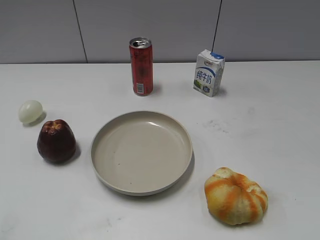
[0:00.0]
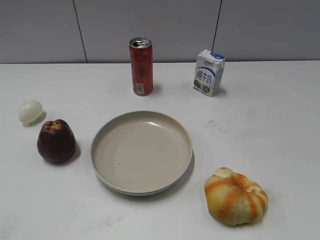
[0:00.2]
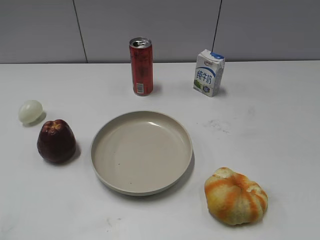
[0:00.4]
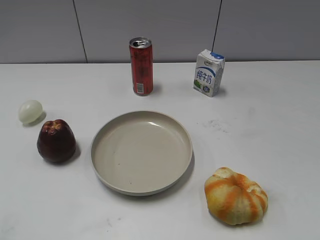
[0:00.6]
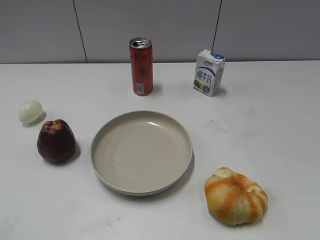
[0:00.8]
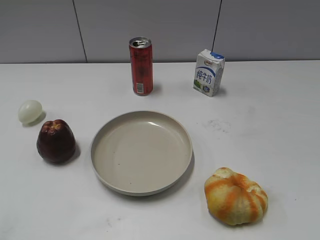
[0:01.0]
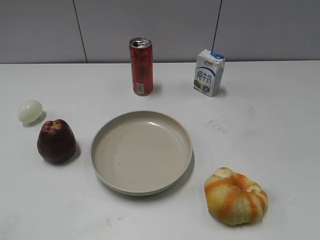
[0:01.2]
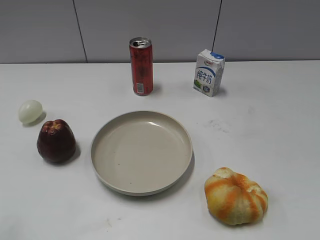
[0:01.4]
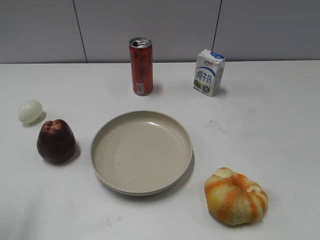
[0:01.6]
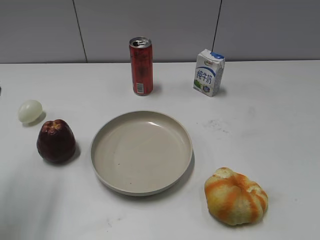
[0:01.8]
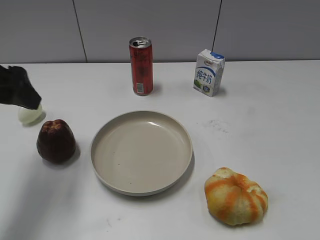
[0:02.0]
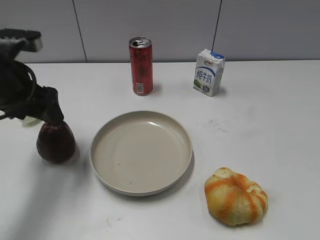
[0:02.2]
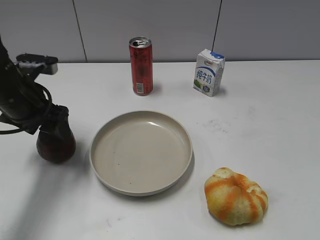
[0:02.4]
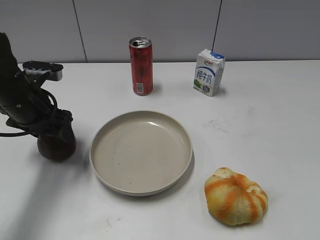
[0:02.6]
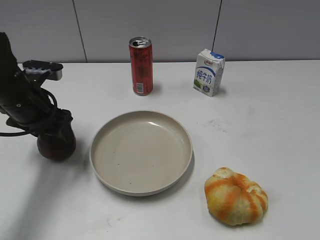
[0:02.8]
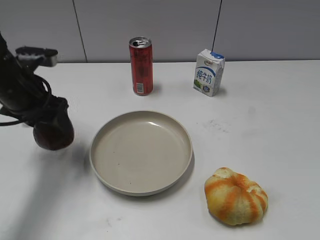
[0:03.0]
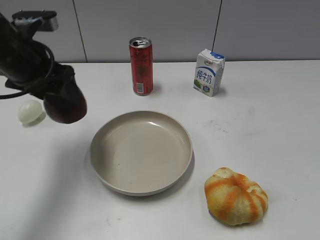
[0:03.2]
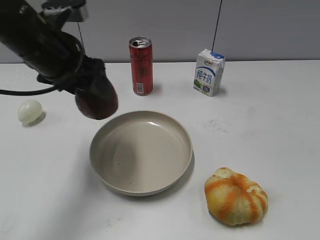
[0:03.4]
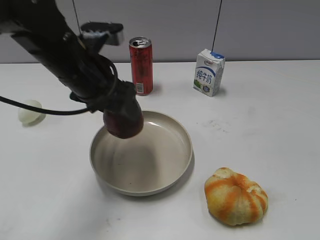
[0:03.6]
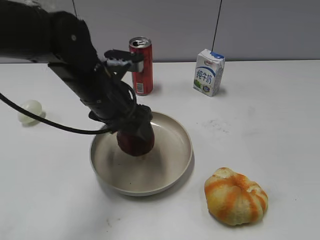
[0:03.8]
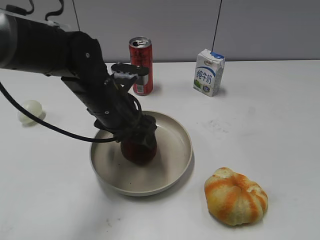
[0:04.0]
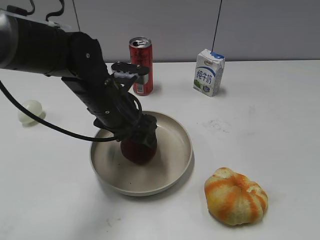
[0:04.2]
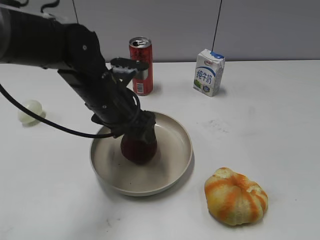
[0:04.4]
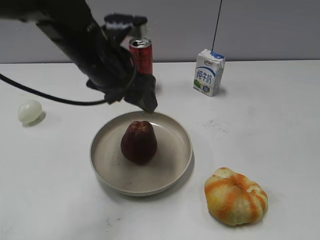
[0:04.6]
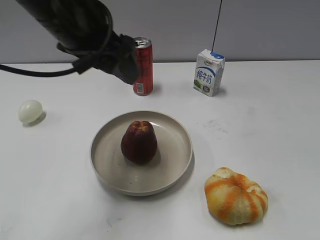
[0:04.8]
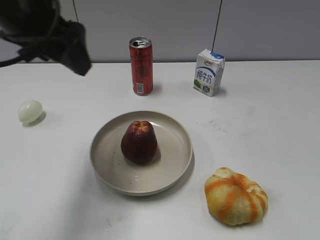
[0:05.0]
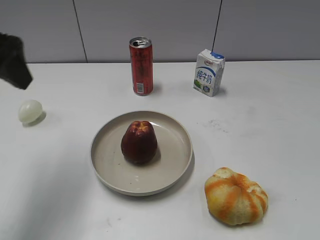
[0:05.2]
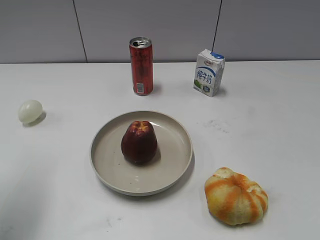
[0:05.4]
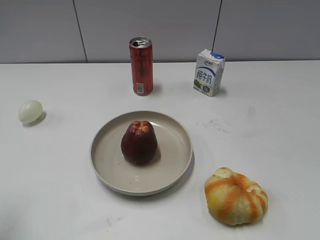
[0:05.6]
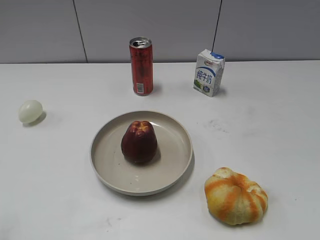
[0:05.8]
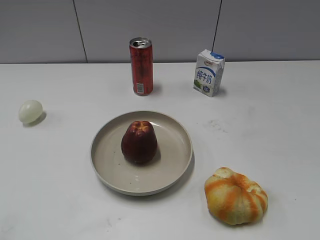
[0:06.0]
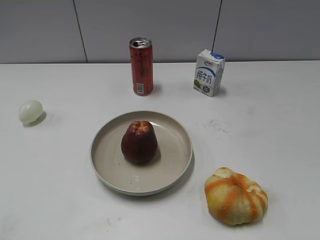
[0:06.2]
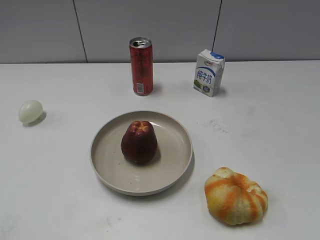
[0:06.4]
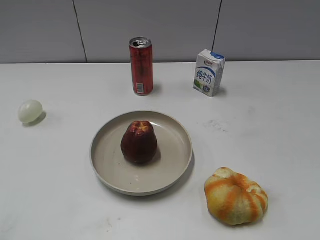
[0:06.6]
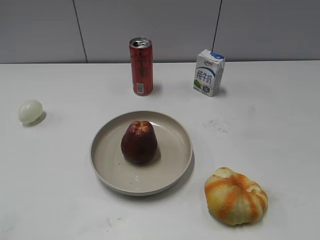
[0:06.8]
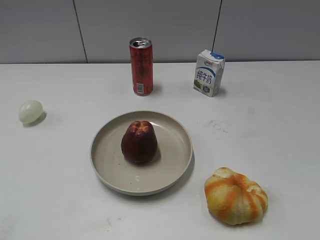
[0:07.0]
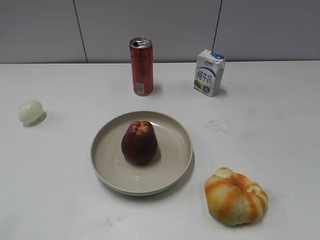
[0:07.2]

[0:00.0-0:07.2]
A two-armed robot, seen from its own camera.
Step, 0:01.2 to 0:02.4: Grasp the apple with left gripper.
Step, 0:02.8 to 0:04.6: Place the apple on the plate with left gripper.
0:01.4 to 0:02.8: The left gripper travels forward and downward by approximately 30 cm, and closes up.
0:02.8 to 0:04.4: The left gripper heads to the right, covering approximately 15 cm, and opens its fingers.
0:04.4 to 0:05.8: The left gripper moves to the left, backward and upward, some 35 cm, and closes up.
